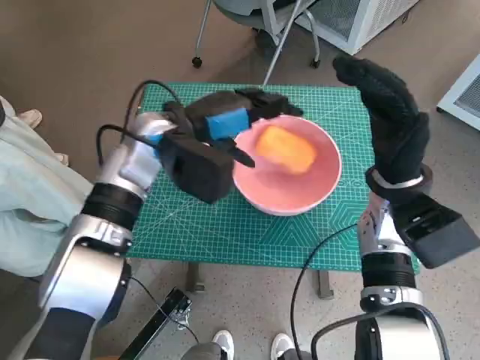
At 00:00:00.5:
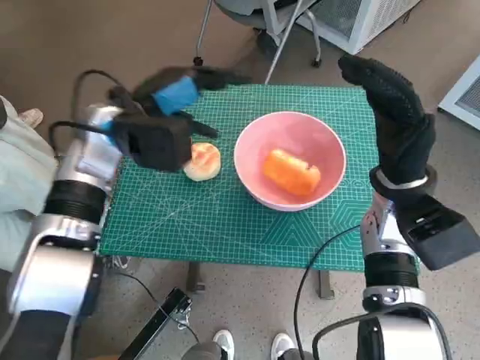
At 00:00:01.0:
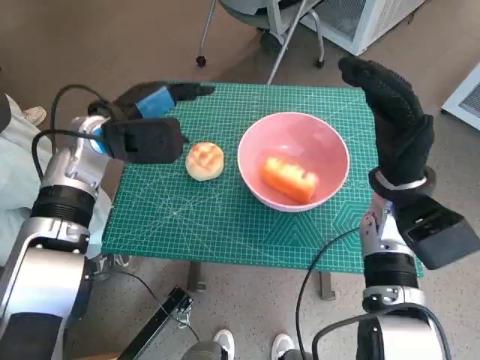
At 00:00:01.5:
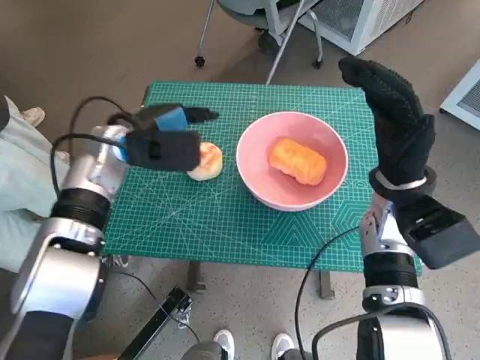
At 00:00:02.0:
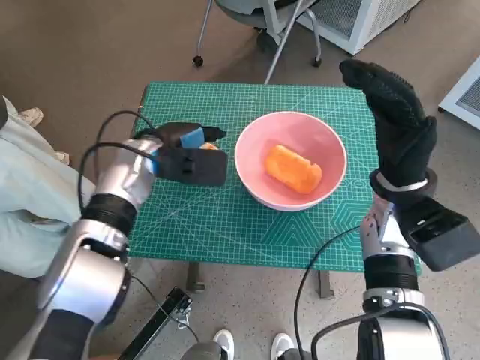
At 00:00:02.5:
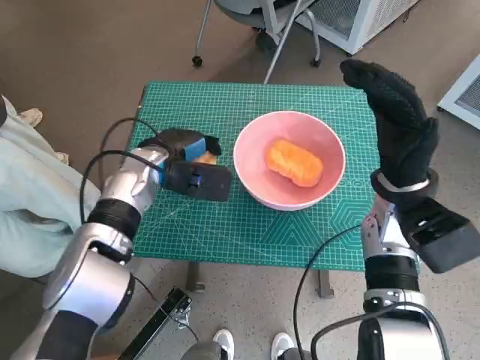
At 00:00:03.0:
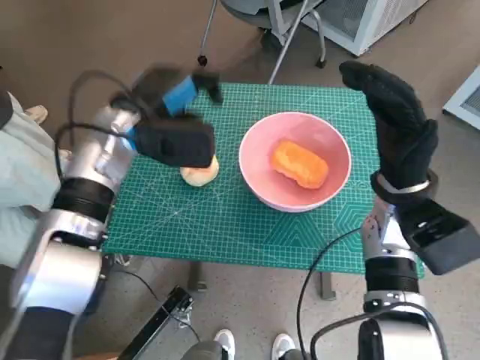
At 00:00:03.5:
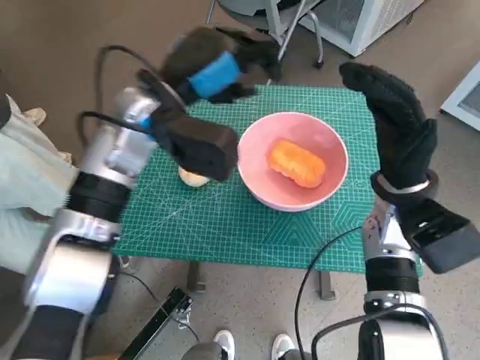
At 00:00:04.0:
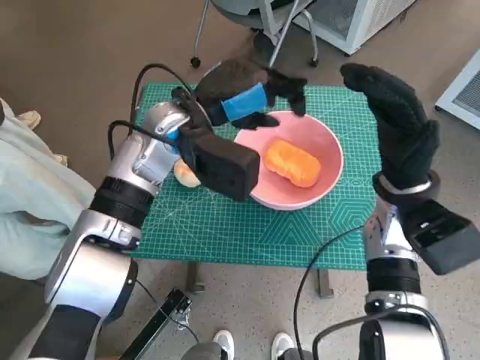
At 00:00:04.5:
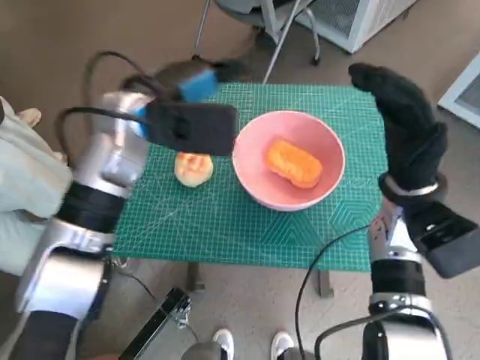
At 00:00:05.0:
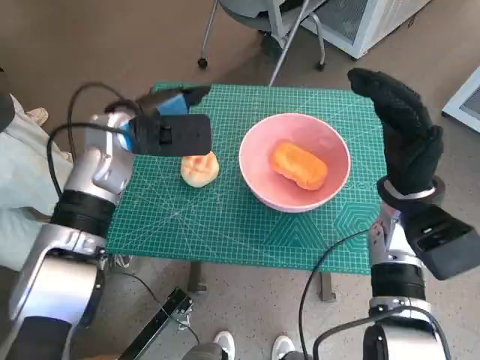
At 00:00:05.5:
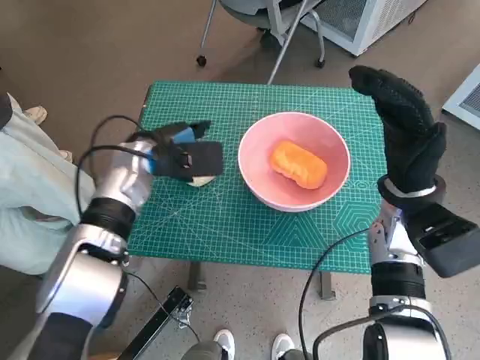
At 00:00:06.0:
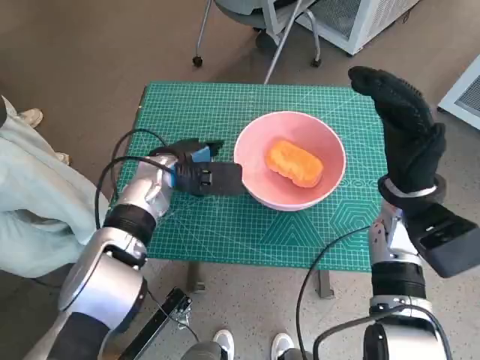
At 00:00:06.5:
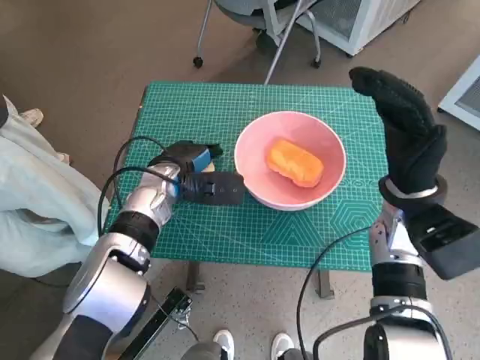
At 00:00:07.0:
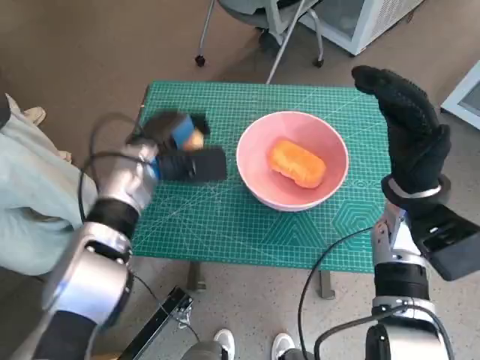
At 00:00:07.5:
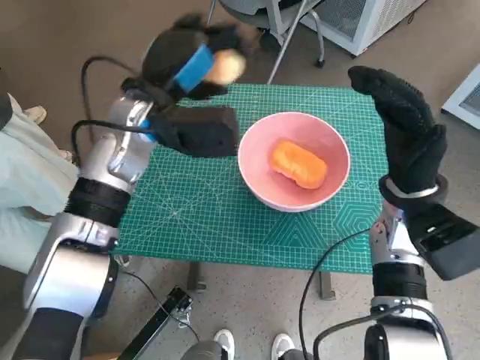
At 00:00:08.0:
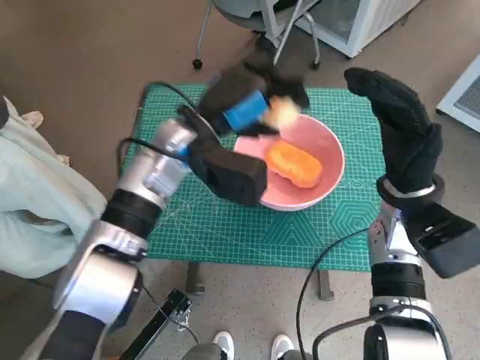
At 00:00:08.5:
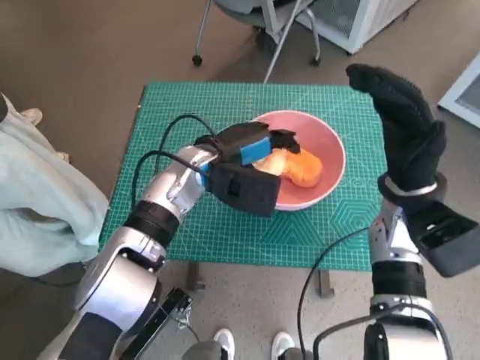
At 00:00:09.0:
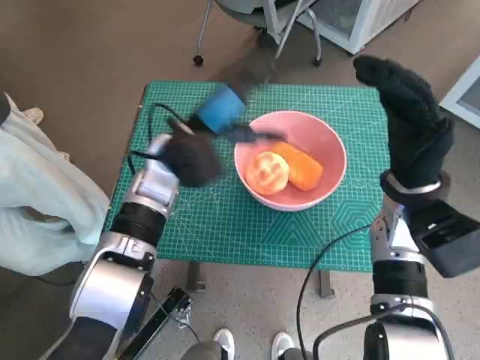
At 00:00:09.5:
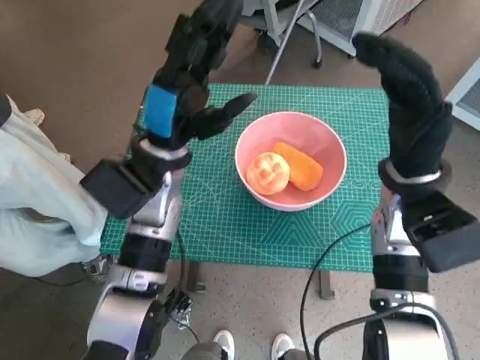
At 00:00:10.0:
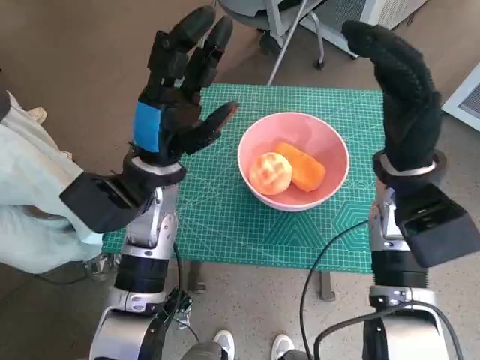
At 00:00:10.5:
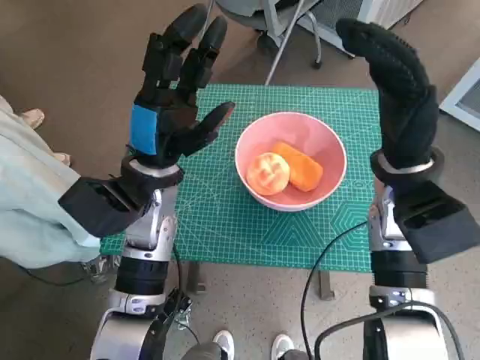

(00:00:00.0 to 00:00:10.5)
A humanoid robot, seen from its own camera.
Task of the whole recording: Push the bowl to the center of the table and put the bread into the bowl.
Step, 00:00:00.0 - 00:00:06.5: Grasp the round bread with left hand.
Step, 00:00:07.0 - 00:00:08.5: Place the round bread in pink bowl with left hand.
00:00:00.0 - 00:00:02.0: The left hand moves downward, approximately 5 cm.
00:00:02.0 - 00:00:04.0: The left hand travels upward and to the right by about 10 cm.
00:00:04.0 - 00:00:06.5: The left hand moves downward, about 10 cm.
00:00:06.5 - 00:00:08.5: The left hand goes approximately 5 cm to the right.
00:00:08.5 - 00:00:10.5: The left hand goes some 5 cm backward and to the left.
